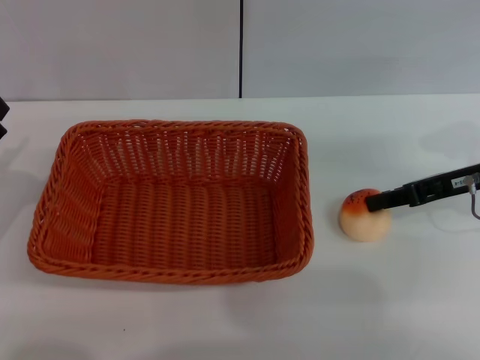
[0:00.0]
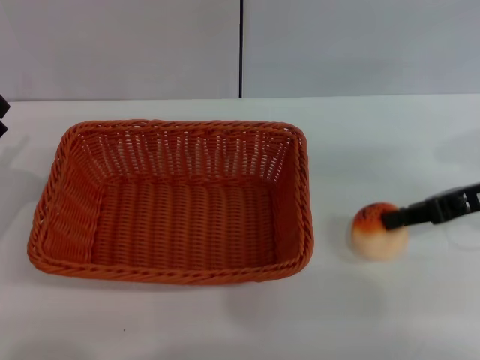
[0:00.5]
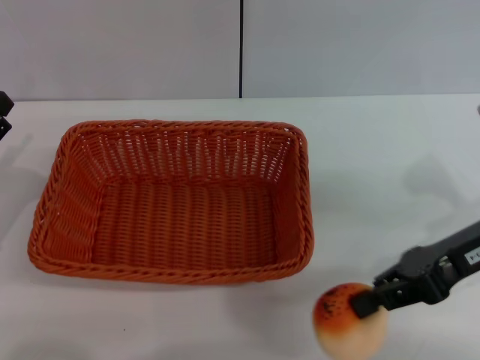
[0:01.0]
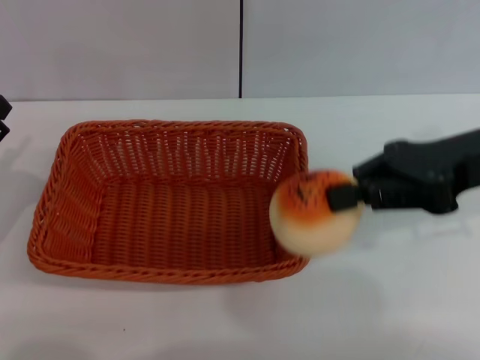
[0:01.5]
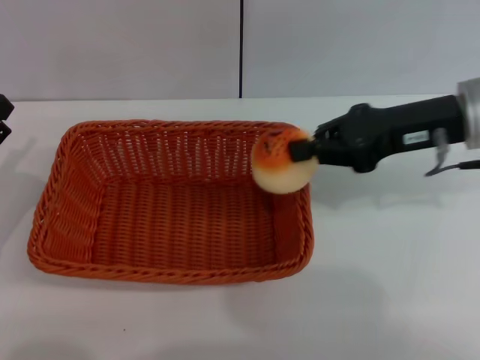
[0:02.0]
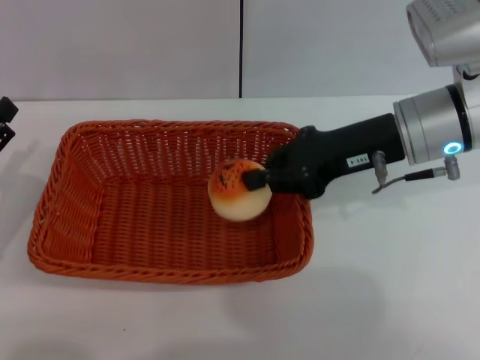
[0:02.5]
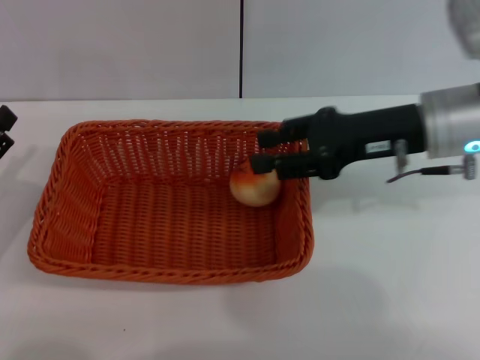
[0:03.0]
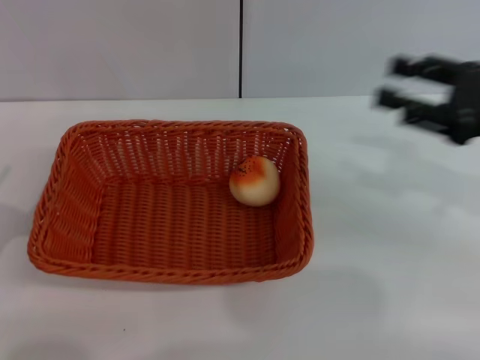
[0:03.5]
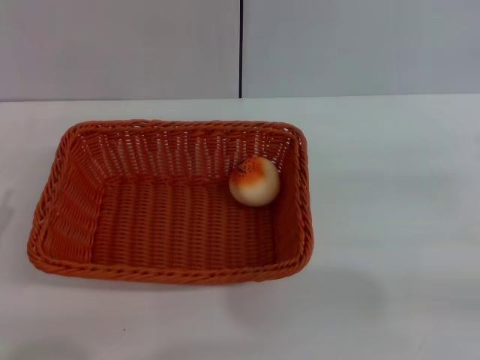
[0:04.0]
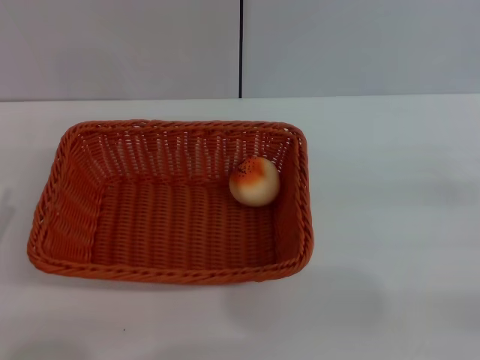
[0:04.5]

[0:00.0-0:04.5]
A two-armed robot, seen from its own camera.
Step, 0:01.5 to 0:03.0: Place the egg yolk pastry into the basket with the right gripper.
0:00.0 to 0:02.0: The right gripper travels to the left and upward by approximately 10 cm, and closes its fingers.
0:02.0 to 0:04.5: The left gripper goes some 10 cm backward. Meanwhile the right gripper is displaced to the right, backward and downward by approximately 25 cm, and opens.
